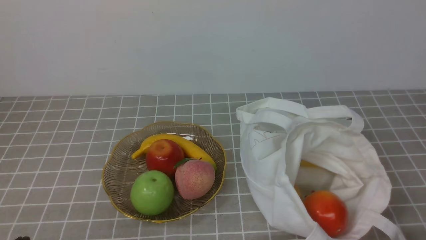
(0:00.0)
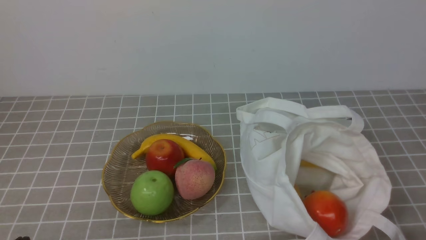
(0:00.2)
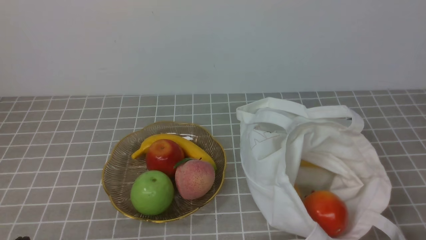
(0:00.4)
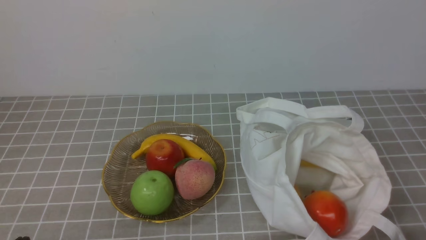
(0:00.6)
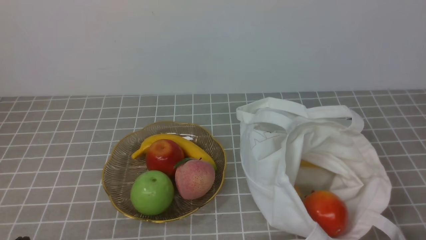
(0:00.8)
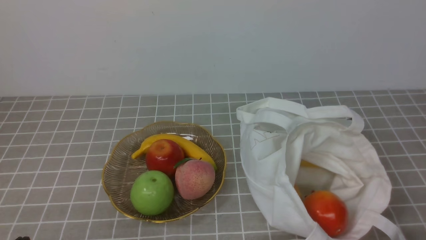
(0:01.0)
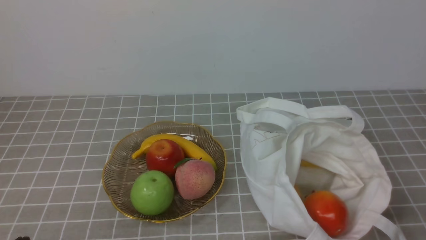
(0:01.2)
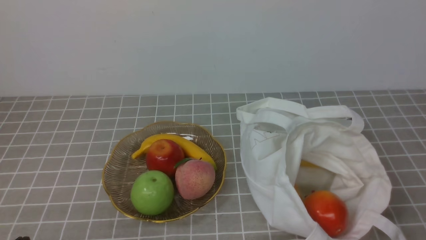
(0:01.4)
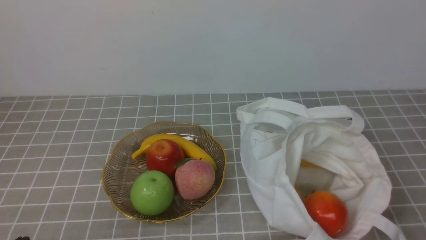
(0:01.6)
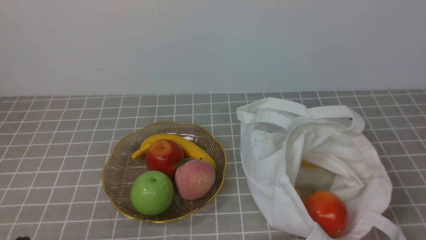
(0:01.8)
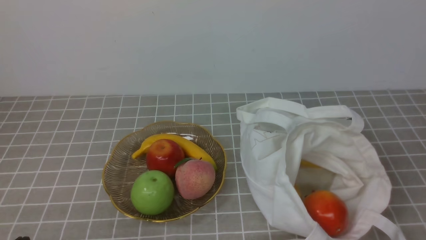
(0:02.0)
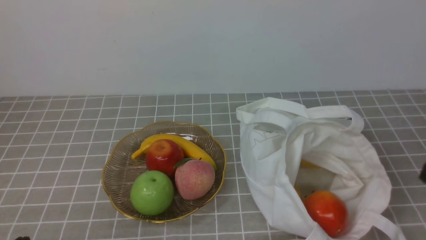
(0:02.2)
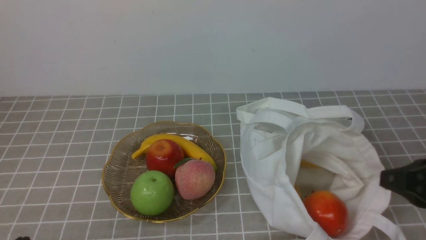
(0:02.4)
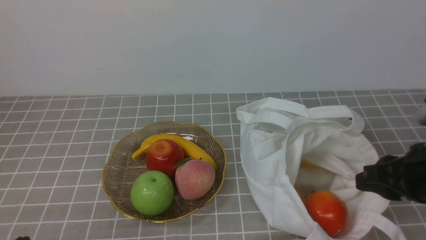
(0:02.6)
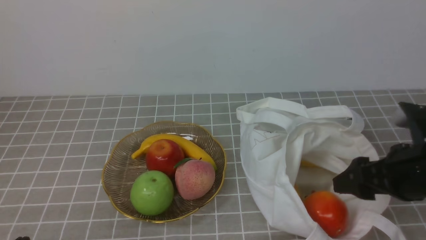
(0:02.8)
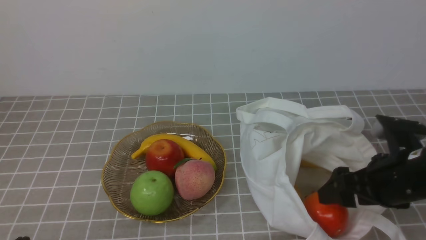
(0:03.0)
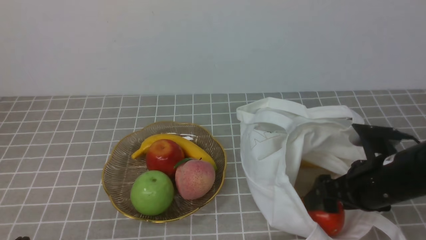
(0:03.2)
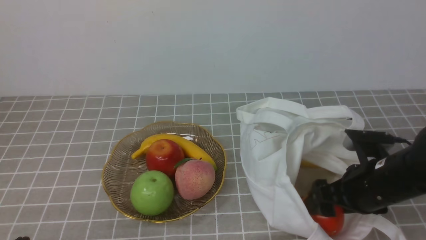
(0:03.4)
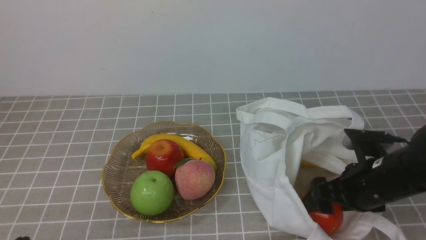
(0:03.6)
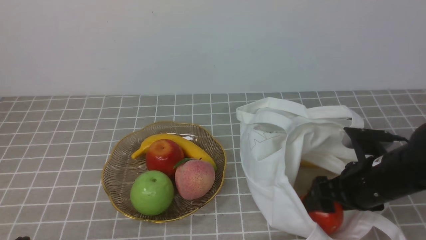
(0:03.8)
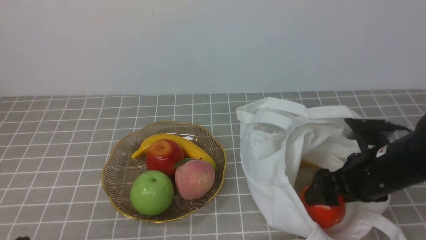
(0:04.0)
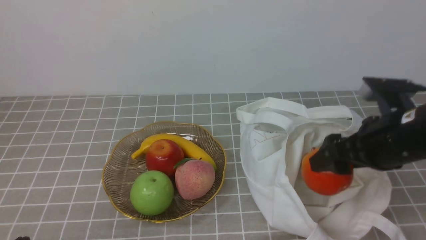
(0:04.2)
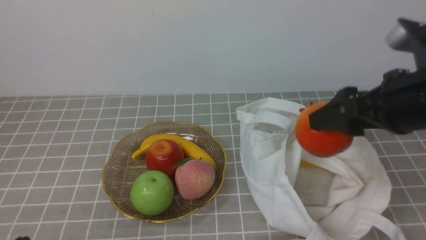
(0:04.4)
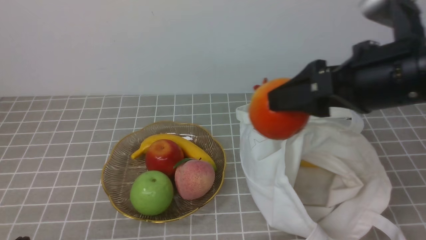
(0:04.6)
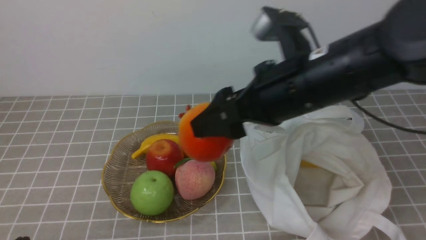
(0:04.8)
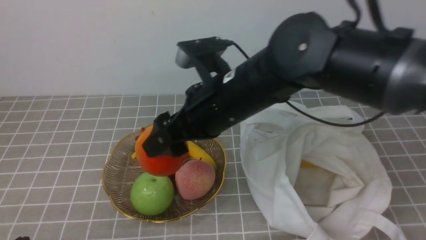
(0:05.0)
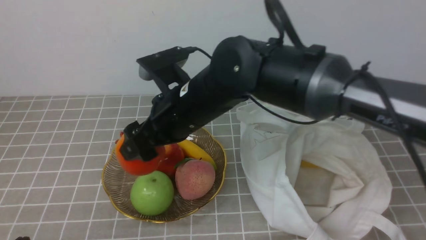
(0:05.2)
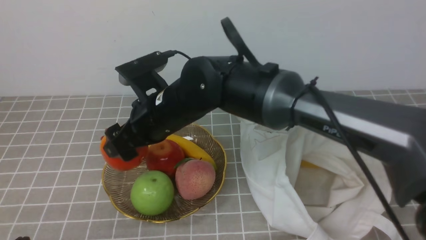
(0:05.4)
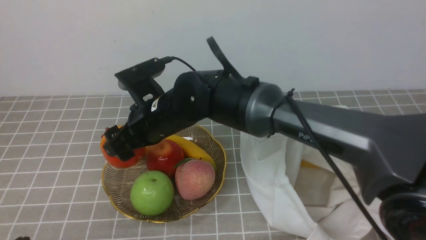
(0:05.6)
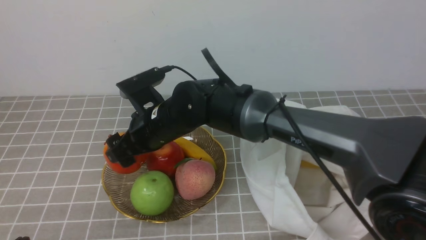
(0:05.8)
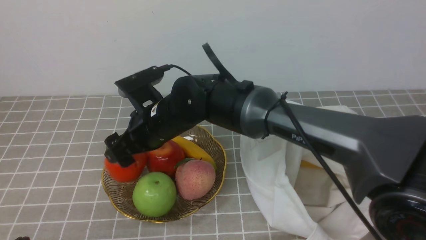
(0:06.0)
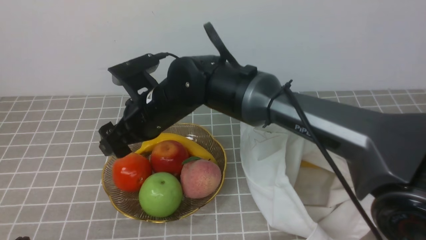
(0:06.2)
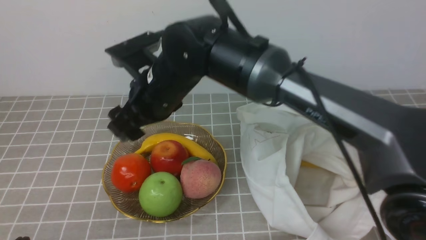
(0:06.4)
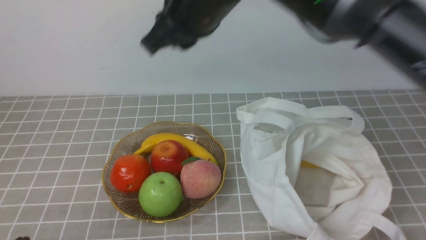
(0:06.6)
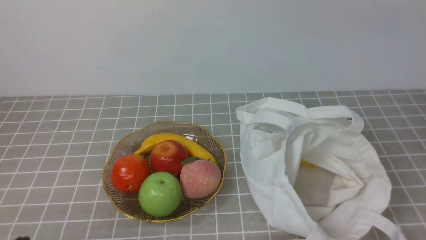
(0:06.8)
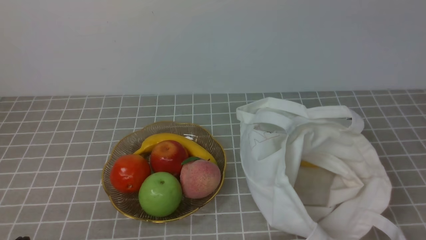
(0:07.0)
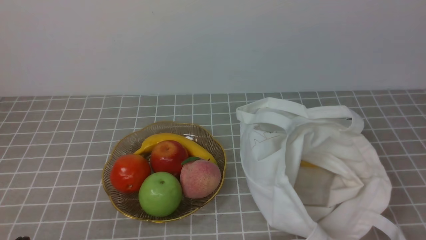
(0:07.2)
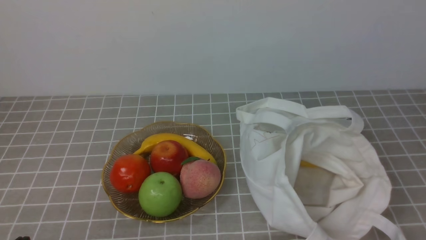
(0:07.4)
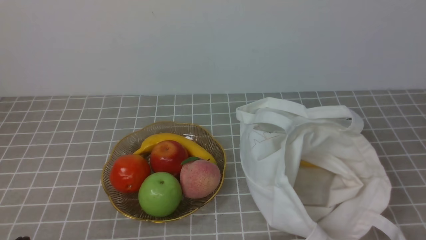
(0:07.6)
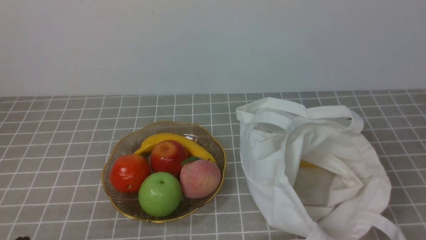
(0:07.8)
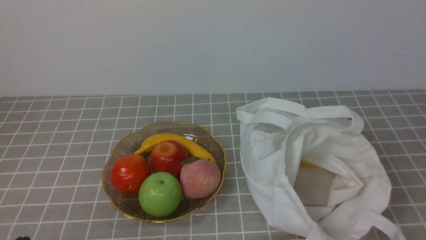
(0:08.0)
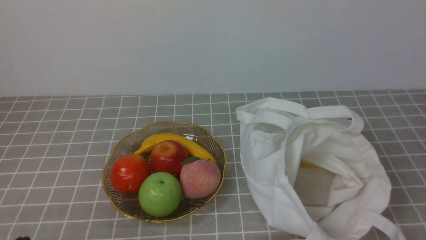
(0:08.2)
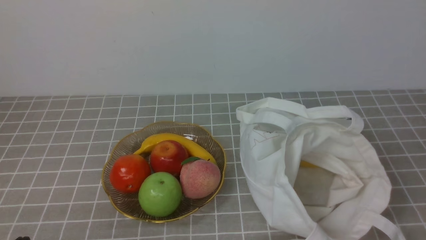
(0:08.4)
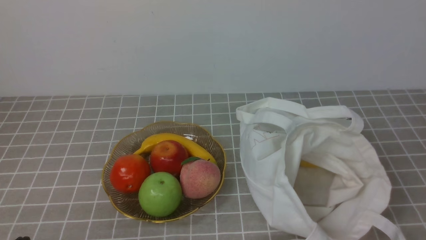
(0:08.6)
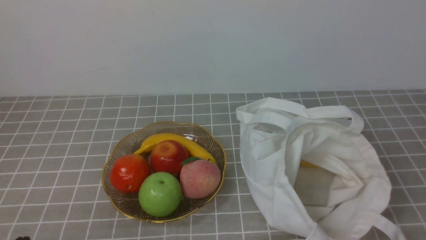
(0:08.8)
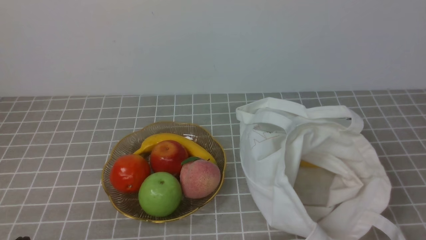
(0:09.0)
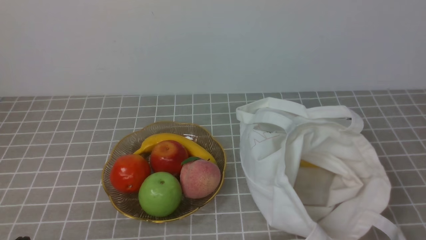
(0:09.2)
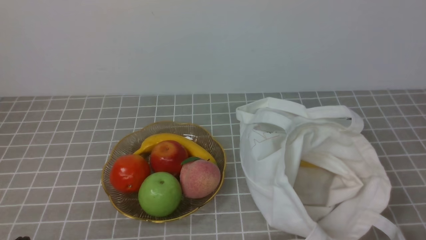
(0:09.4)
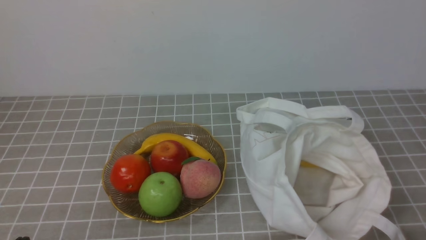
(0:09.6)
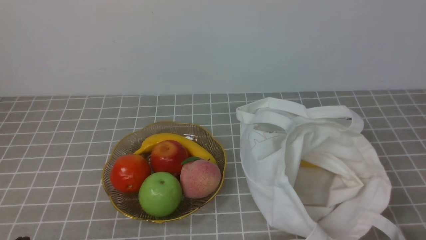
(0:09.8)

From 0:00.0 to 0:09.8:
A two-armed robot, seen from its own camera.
Step, from 0:00.0 to 0:03.8: use the right arm to grab a pomegranate from the bag.
Step, from 0:04.0 to 0:06.2: use the right arm to put the pomegranate into the empty plate on the left.
From 0:01.4 to 0:02.8: The right gripper shifts approximately 15 cm forward and to the left, and opens.
From 0:02.8 to 0:04.2: The right gripper moves approximately 5 cm.
From 0:04.2 to 0:05.6: The right gripper goes some 30 cm to the left.
From 0:05.6 to 0:07.0: The right gripper goes some 50 cm upward, to the right and backward, and closes up.

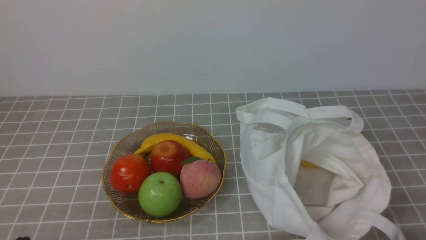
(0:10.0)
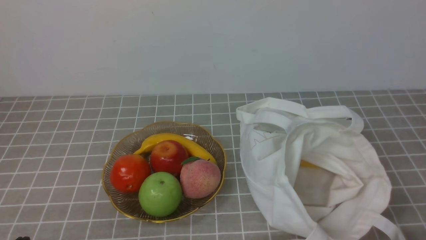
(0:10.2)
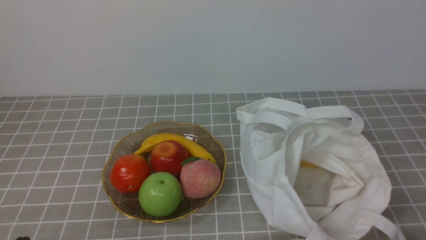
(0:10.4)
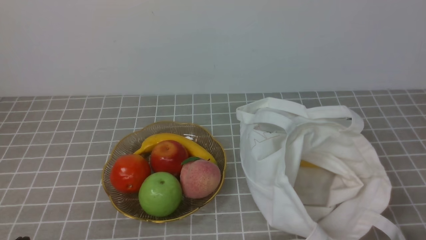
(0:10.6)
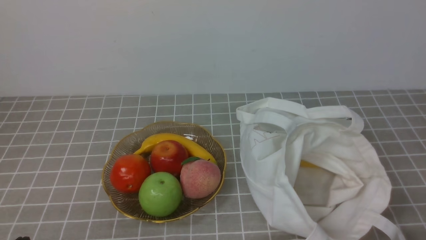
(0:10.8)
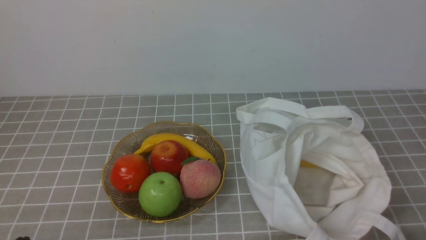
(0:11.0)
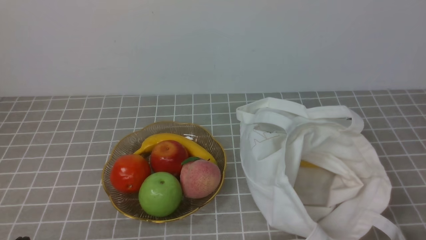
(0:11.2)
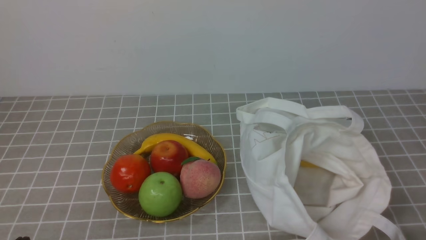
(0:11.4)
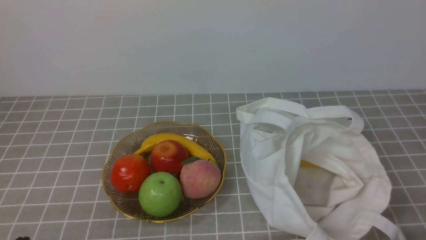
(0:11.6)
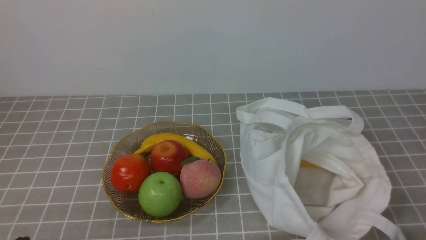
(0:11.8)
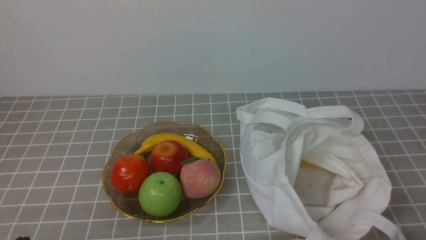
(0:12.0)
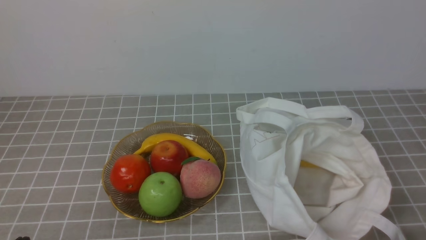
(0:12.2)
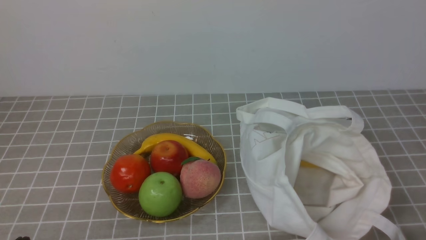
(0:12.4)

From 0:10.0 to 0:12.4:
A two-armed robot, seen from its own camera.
From 0:10.0 to 0:12.4: Both grippers stay put.

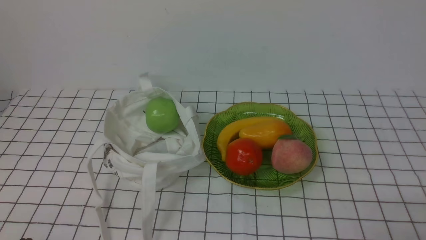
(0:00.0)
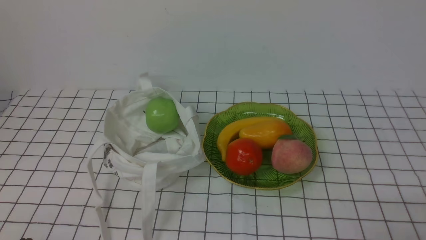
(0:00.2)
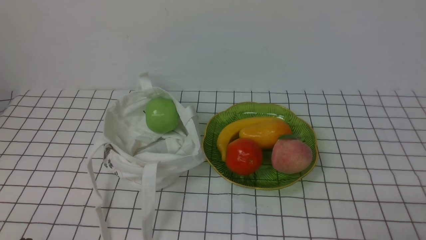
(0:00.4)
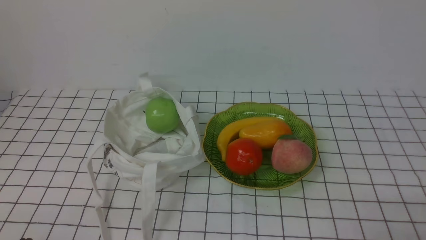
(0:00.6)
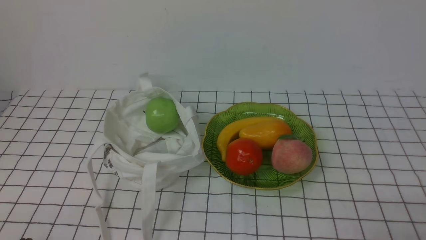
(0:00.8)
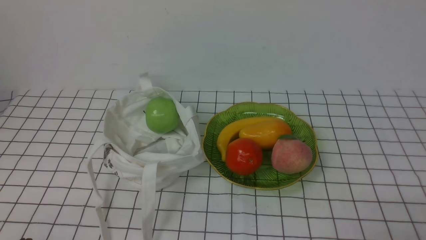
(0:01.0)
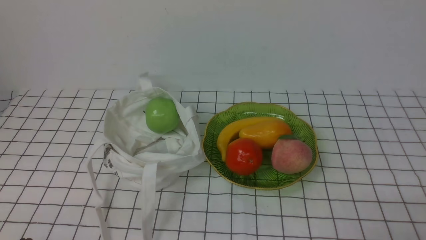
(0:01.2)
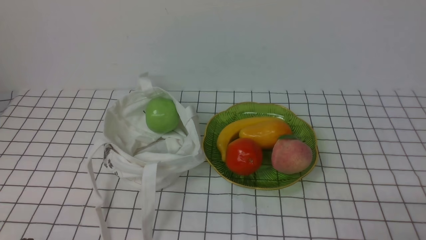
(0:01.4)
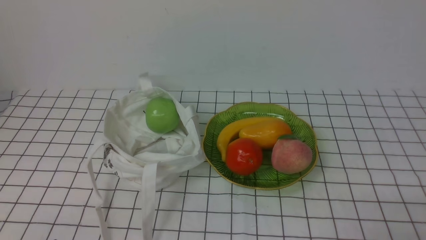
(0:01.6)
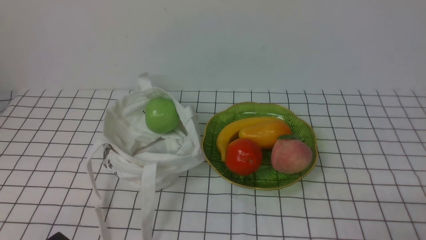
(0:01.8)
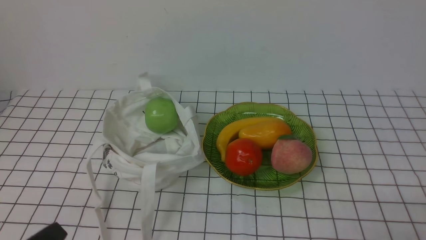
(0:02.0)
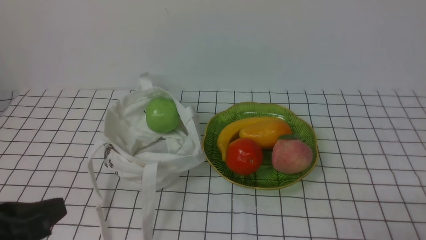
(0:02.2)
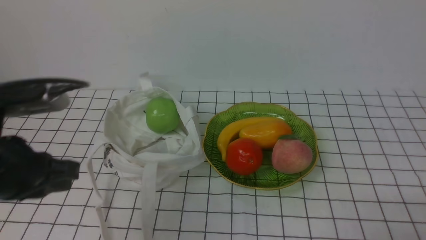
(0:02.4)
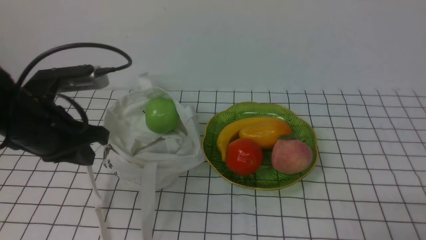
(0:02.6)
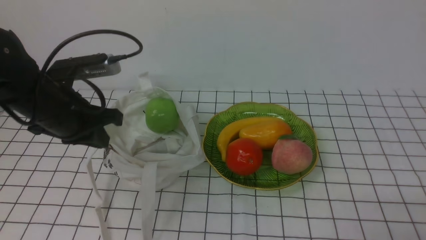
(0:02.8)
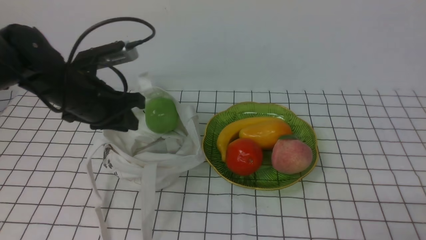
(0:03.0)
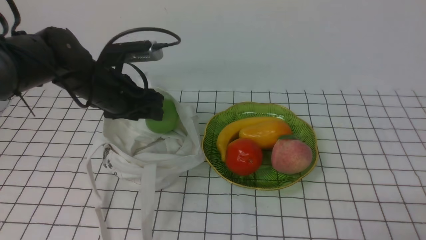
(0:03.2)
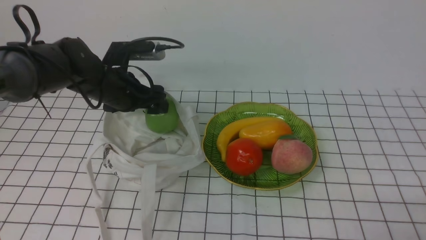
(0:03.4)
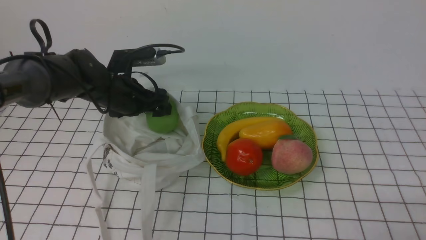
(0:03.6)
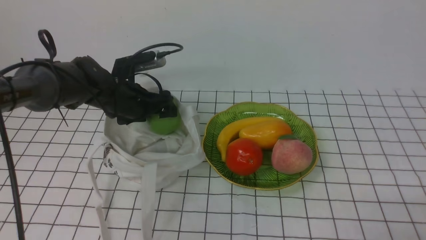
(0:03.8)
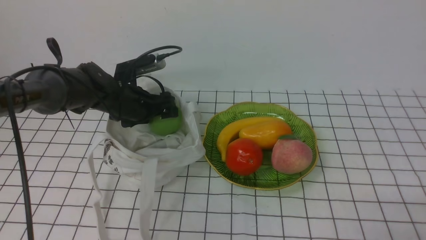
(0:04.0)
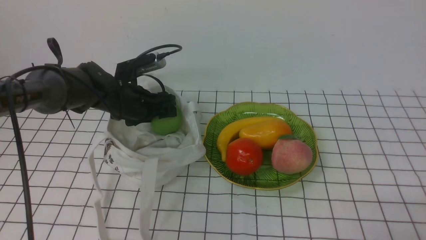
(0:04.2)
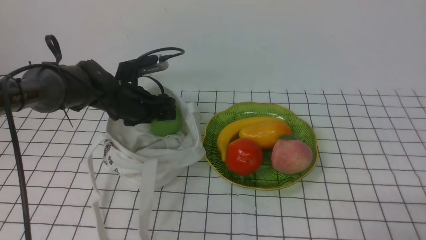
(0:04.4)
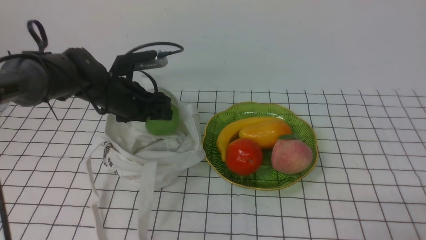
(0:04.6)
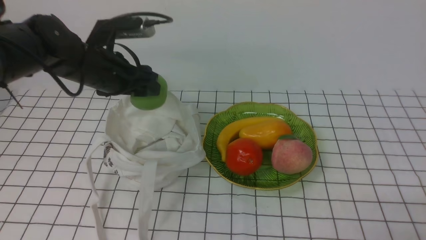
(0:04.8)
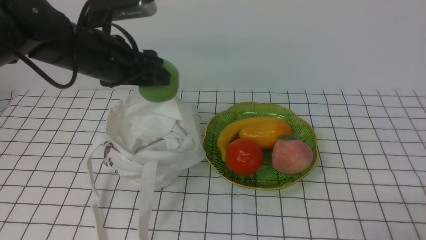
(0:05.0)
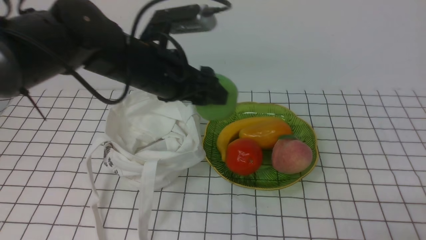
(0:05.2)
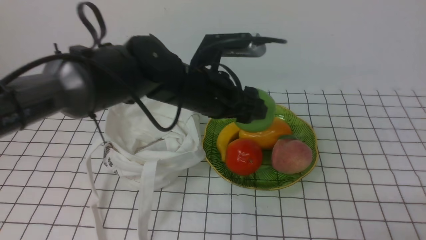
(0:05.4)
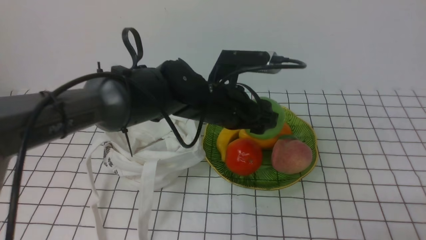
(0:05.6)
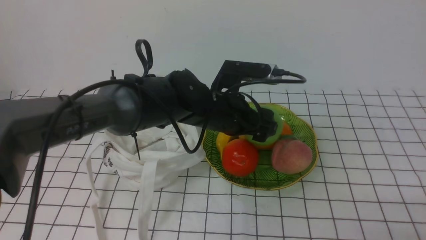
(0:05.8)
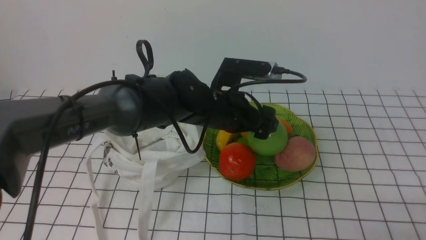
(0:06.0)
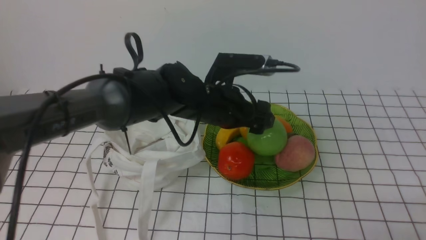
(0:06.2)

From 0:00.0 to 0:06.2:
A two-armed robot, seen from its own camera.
Step, from 0:00.0 to 0:04.0: use the left arm to grab an apple from the bag.
Step, from 0:04.2 to 0:06.2: use the left arm to put the apple into the empty plate on the right.
From 0:01.6 to 0:03.2: The left gripper is displaced forward by about 35 cm, and opens.
From 0:04.6 to 0:06.2: The left gripper travels to the right by about 15 cm.
